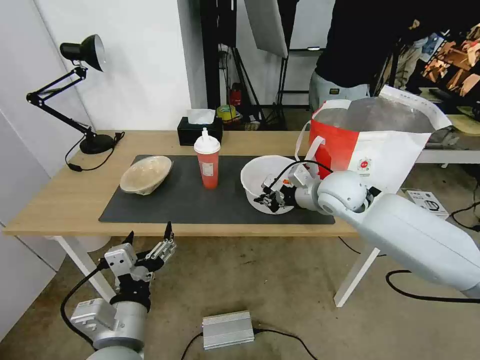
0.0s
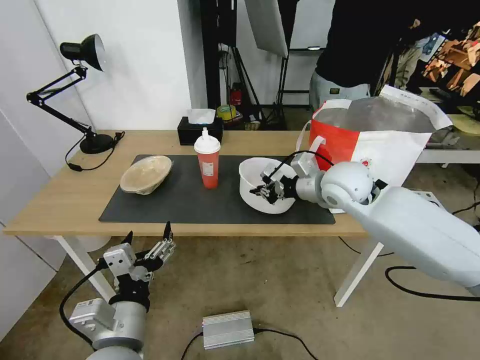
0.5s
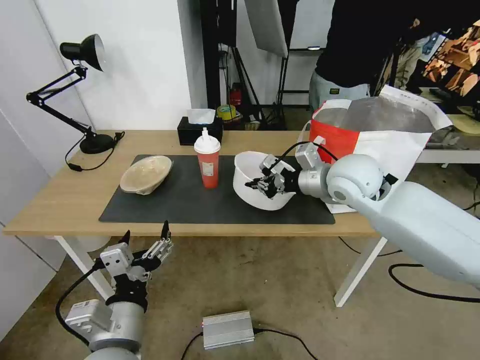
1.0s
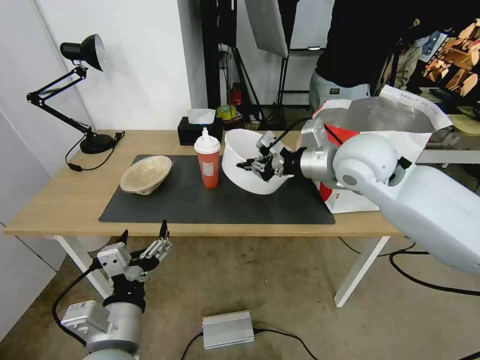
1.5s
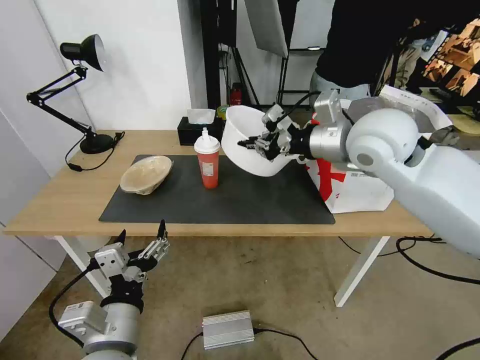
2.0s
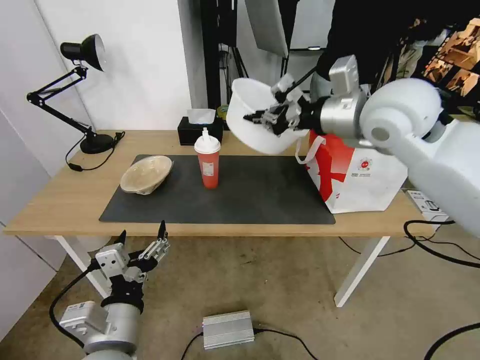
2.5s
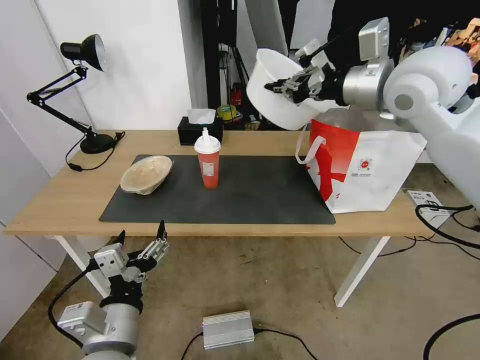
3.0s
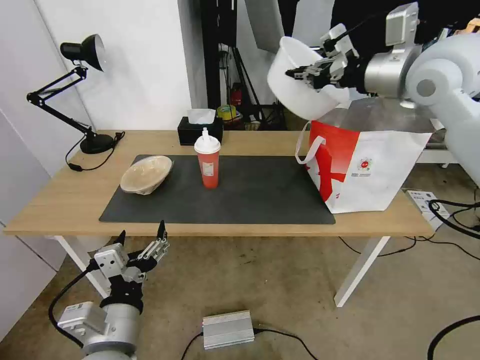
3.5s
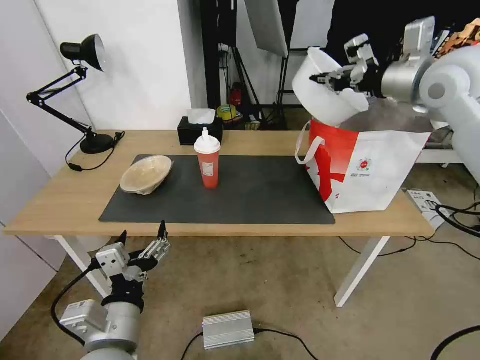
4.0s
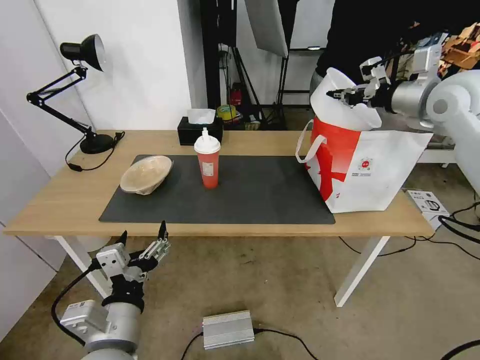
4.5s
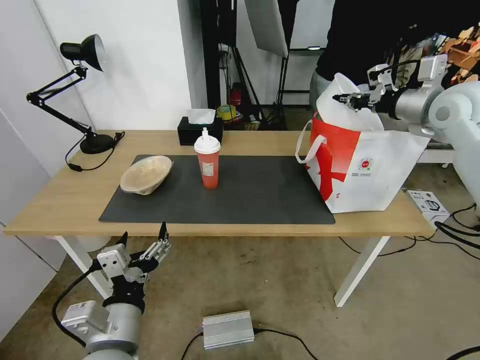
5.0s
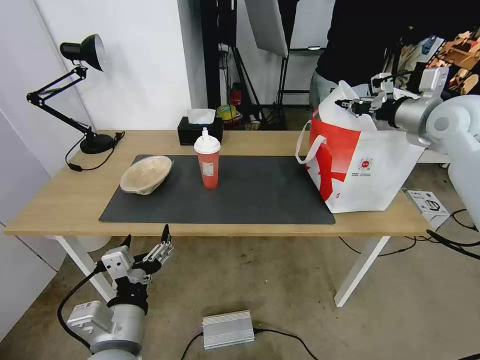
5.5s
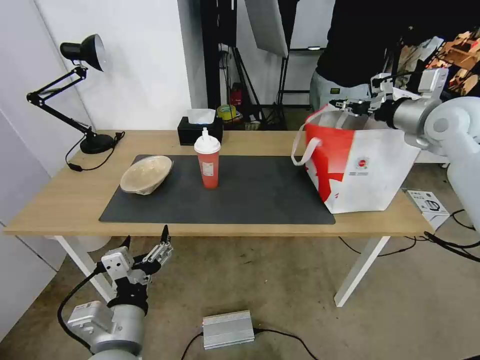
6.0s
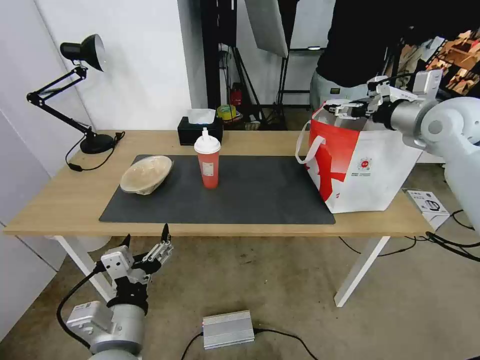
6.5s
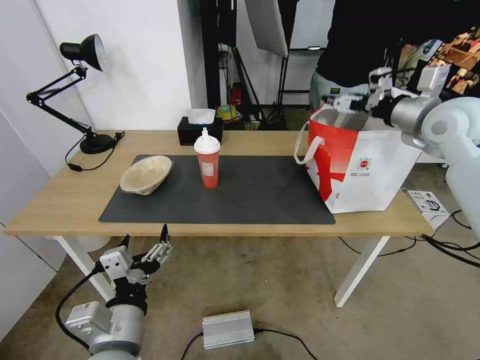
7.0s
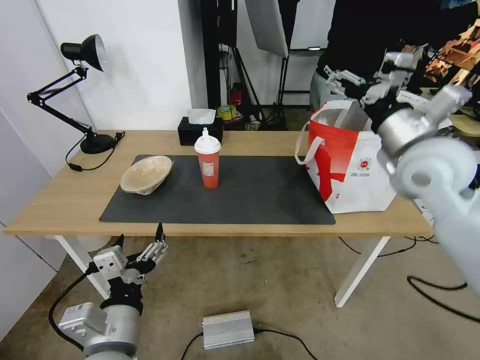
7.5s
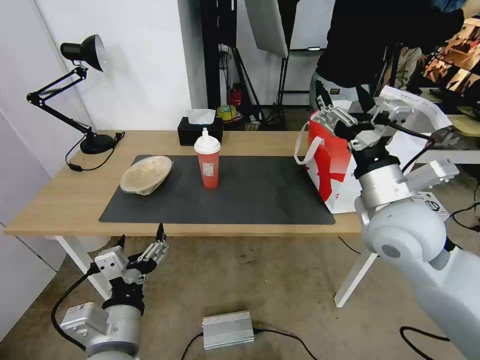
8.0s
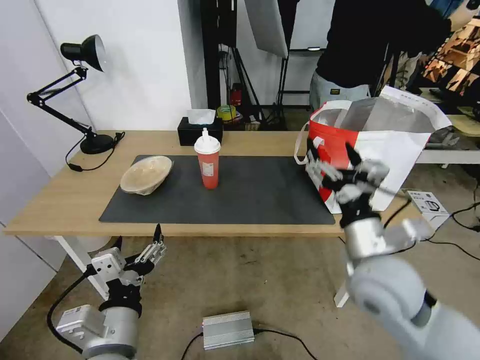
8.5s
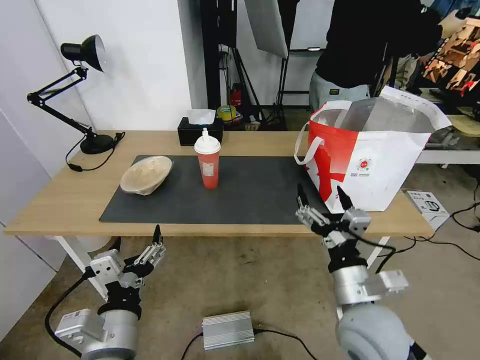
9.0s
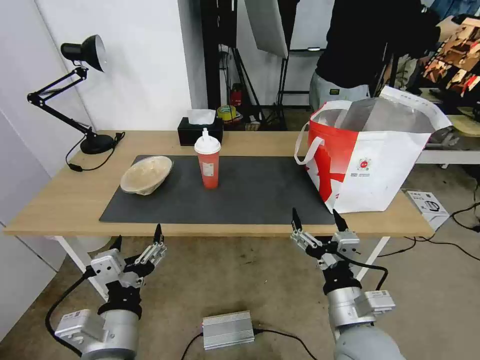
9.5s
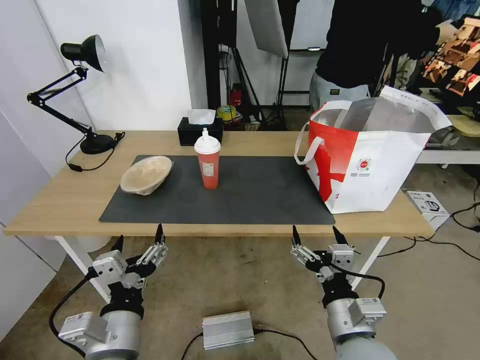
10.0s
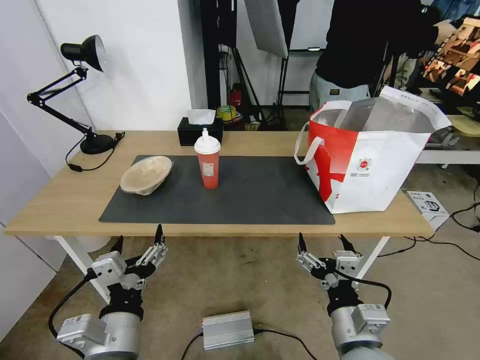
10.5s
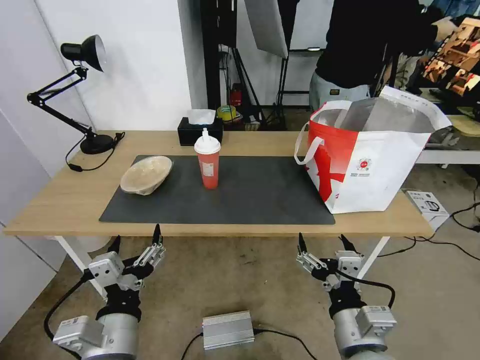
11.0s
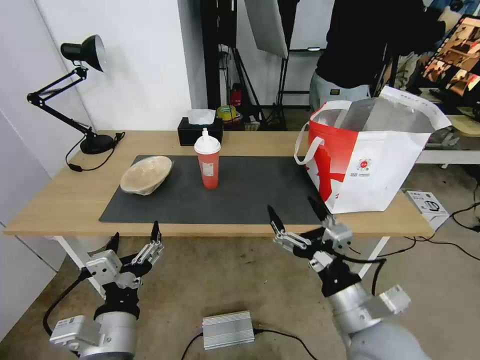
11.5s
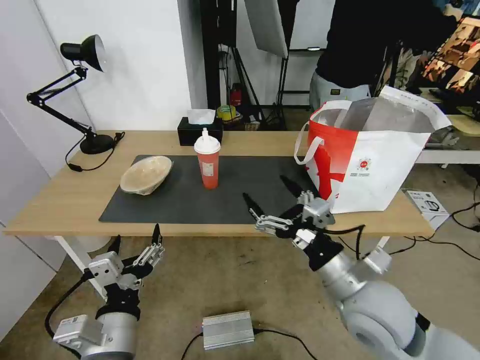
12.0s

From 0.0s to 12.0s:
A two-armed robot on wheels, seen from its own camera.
Task of the whole recording: Pick up the trash from the table and place it into the takeout bag.
From 0.0s to 2.0s: The right gripper is displaced upward by about 15 cm.
From 2.0s to 4.0s: The right gripper is displaced to the right, upward and forward by some 15 cm.
From 4.0s to 6.0s: The right gripper moves downward and to the right, about 10 cm.
From 6.0s to 8.0s: The right gripper heads backward, to the left and downward, covering roughly 25 cm, and opens.
From 8.0s to 10.0s: The right gripper shifts roughly 25 cm downward and backward.
From 10.0s to 12.0s: The right gripper travels upward and forward by roughly 10 cm.

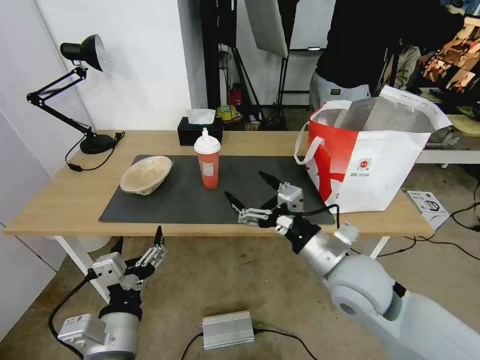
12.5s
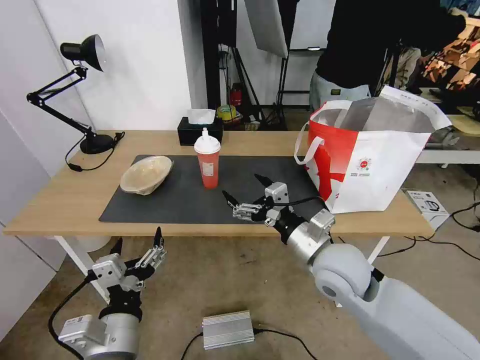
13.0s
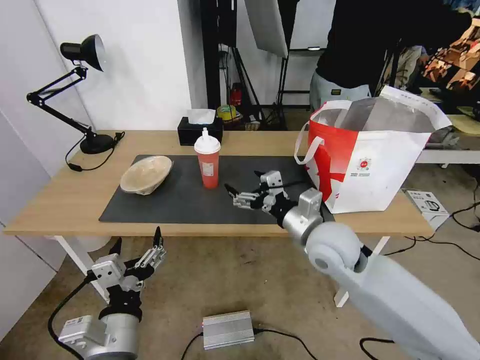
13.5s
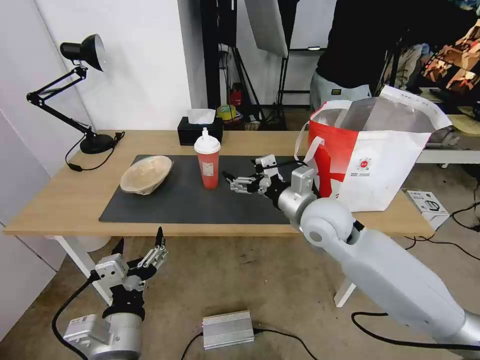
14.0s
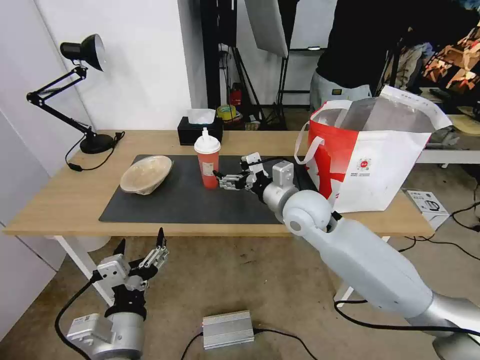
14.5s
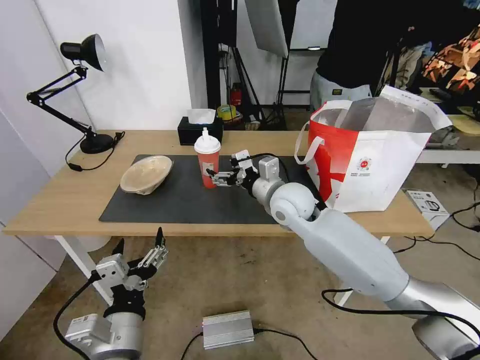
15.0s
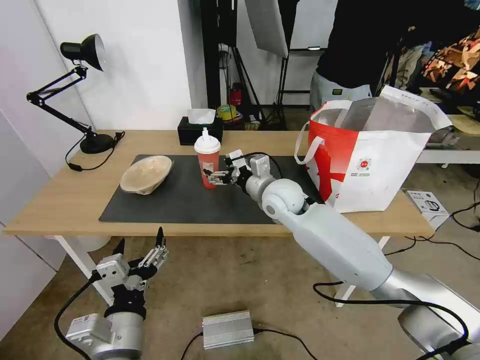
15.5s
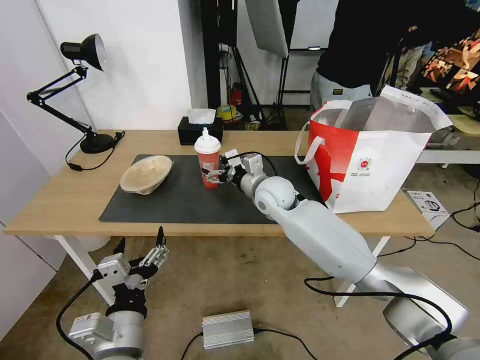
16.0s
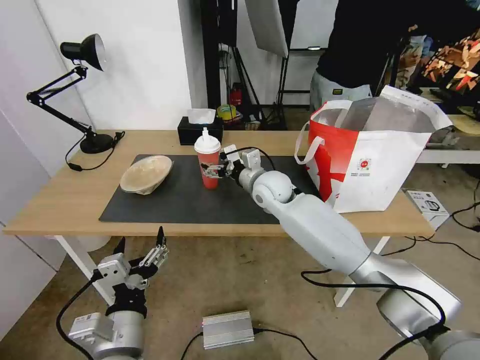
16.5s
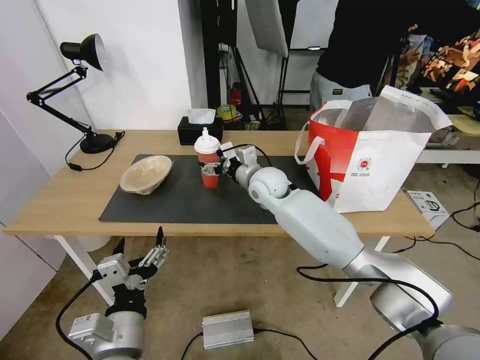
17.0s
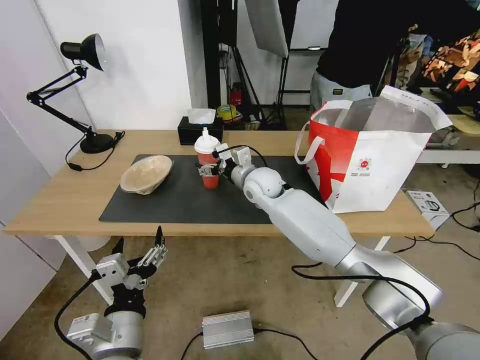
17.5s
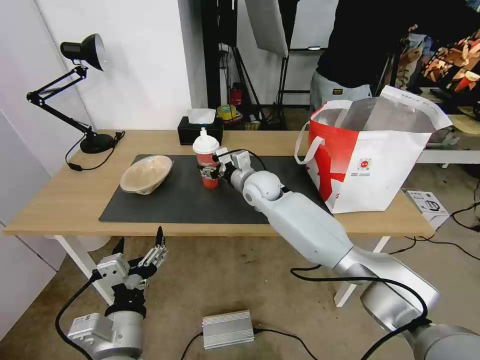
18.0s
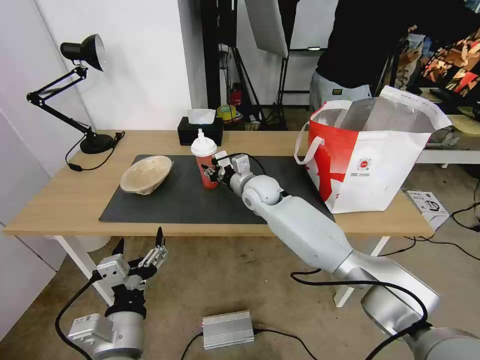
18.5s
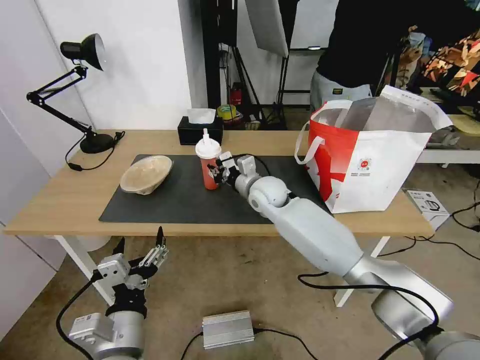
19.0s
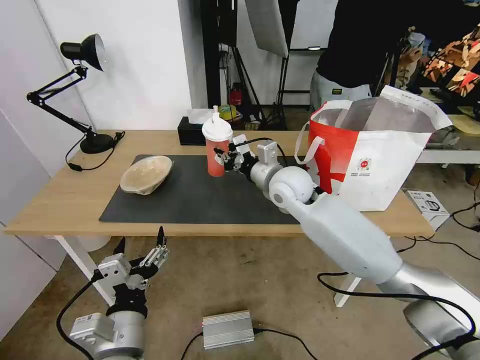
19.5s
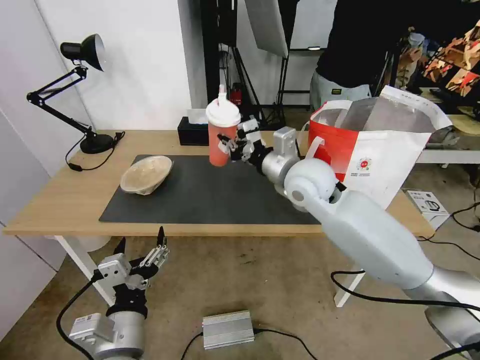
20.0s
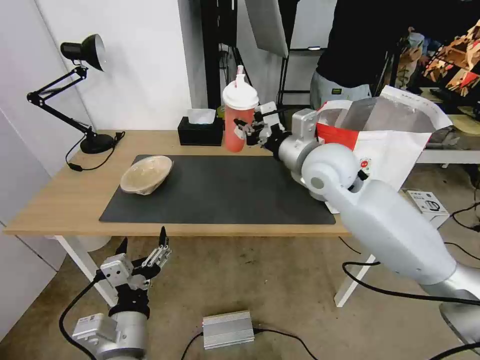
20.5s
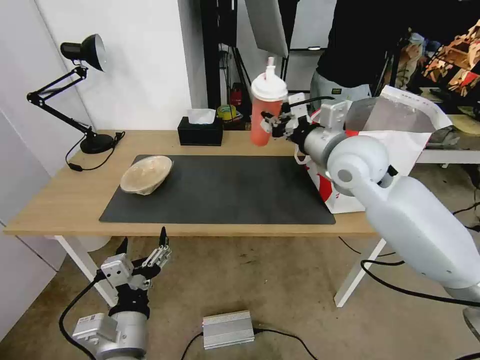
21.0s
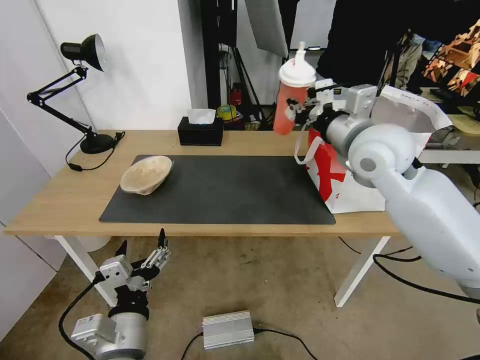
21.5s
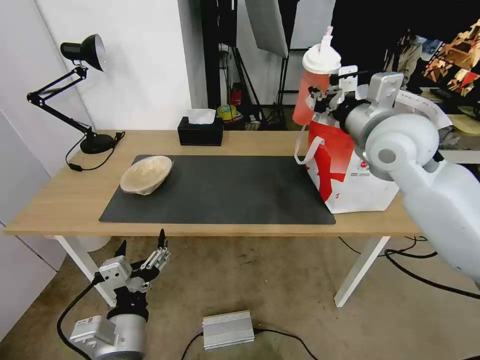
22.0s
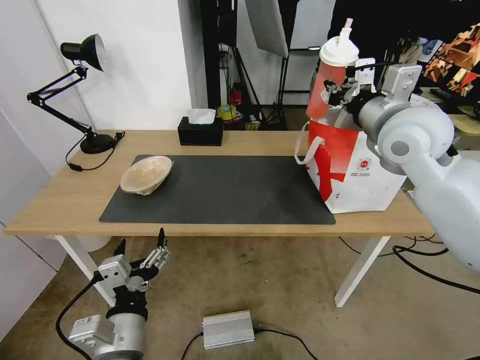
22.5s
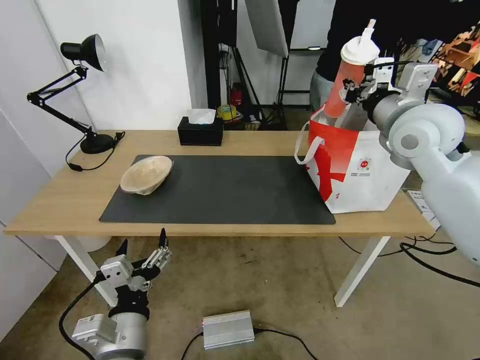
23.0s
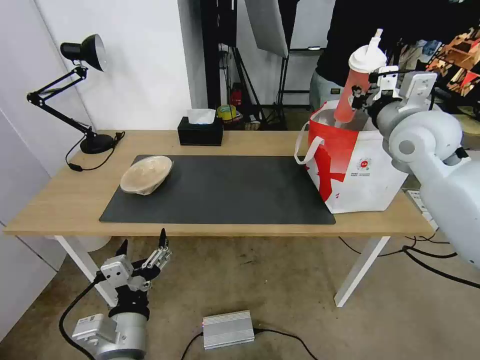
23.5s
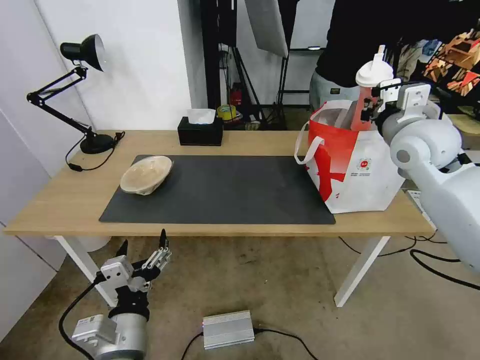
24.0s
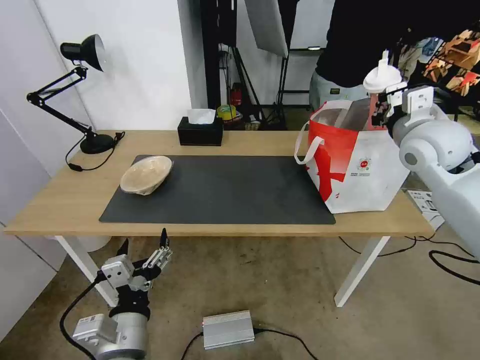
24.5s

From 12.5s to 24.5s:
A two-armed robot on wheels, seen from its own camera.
Task of the whole recording: Pick up the trash from the table and place it into the takeout bag.
From 12.5s to 14.5s: The right gripper goes approximately 15 cm forward.
From 14.5s to 16.5s: The right gripper heads forward and to the left, covering about 10 cm.
From 16.5s to 18.5s: The right gripper closes.
From 18.5s to 20.5s: The right gripper is displaced upward, to the right and backward by roughly 20 cm.
From 20.5s to 22.5s: The right gripper shifts roughly 15 cm to the right and upward.
From 22.5s to 24.5s: The right gripper goes about 5 cm to the right.

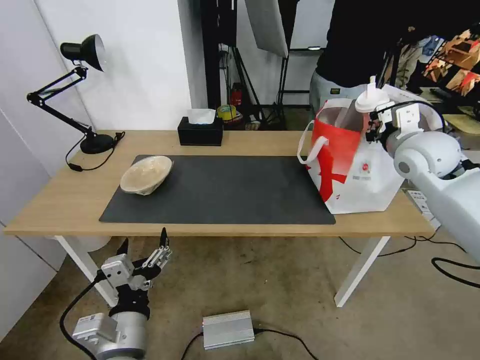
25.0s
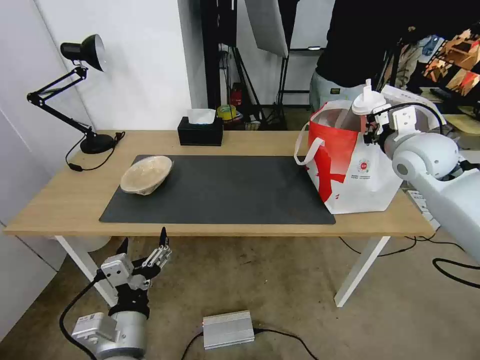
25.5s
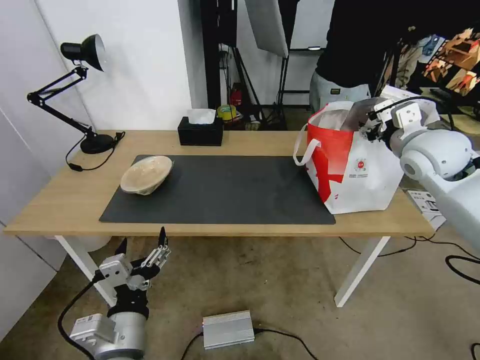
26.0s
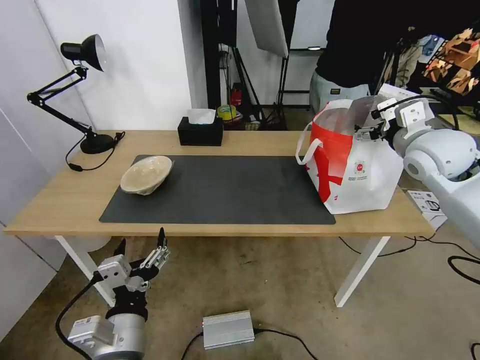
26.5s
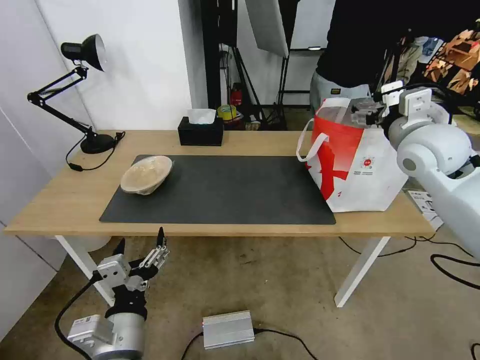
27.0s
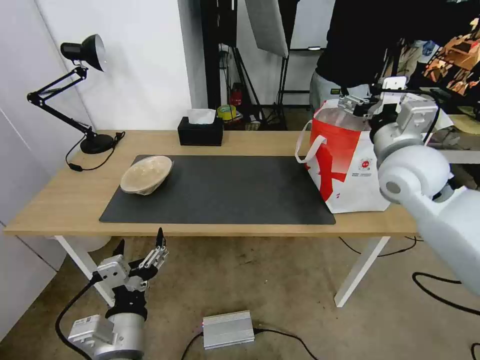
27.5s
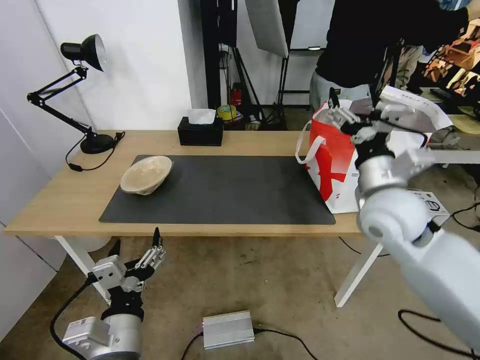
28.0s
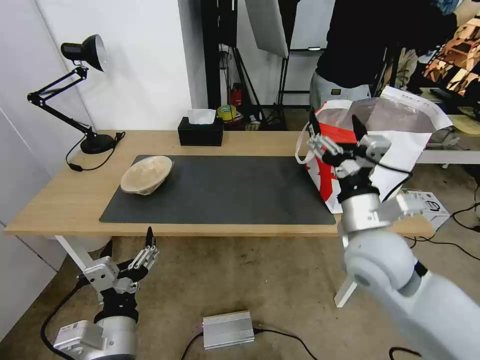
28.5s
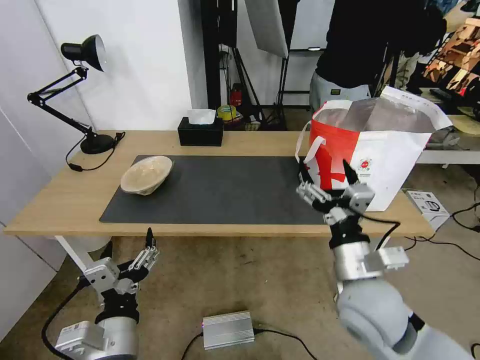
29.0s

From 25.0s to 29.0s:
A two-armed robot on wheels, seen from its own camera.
Task of the whole recording: Pick up the trash from the table and place it into the takeout bag.
From 25.0s to 27.0s: The right gripper opens up.
From 27.0s to 29.0s: The right gripper travels backward, downward and to the left by some 30 cm.
